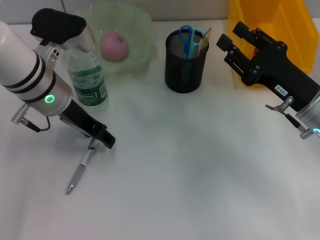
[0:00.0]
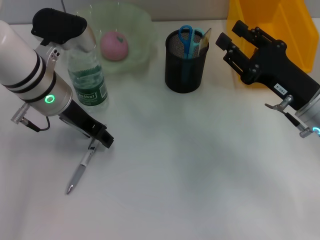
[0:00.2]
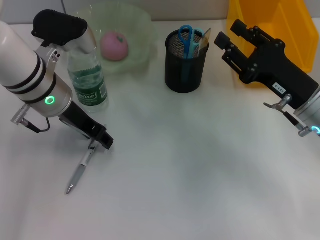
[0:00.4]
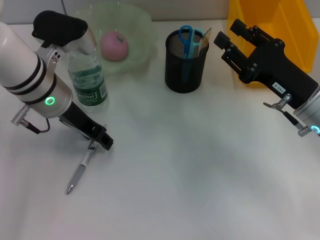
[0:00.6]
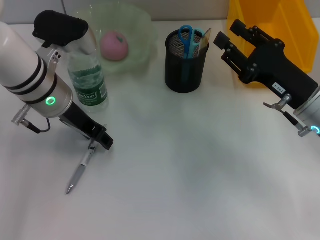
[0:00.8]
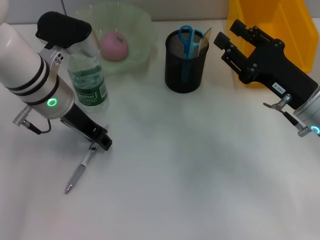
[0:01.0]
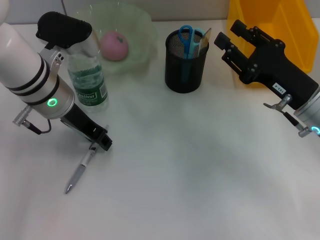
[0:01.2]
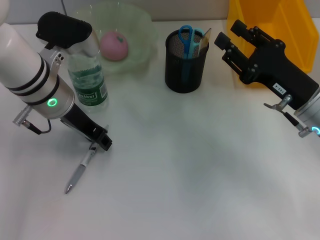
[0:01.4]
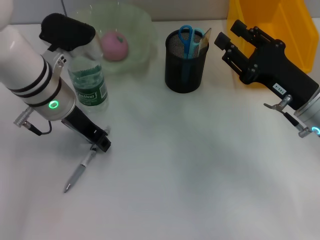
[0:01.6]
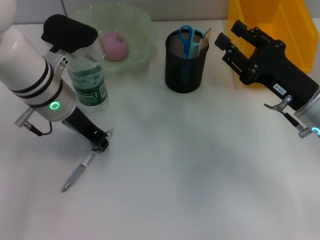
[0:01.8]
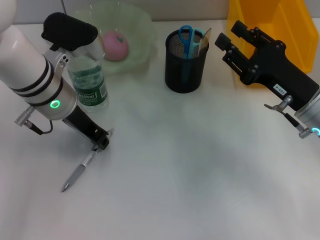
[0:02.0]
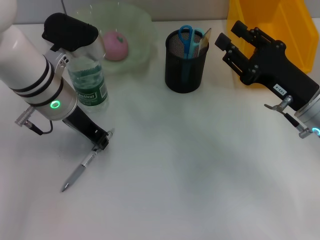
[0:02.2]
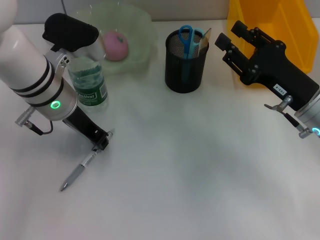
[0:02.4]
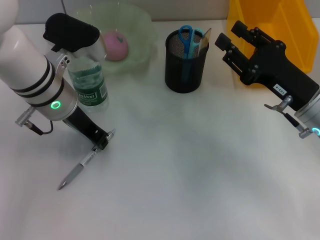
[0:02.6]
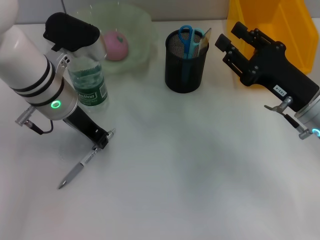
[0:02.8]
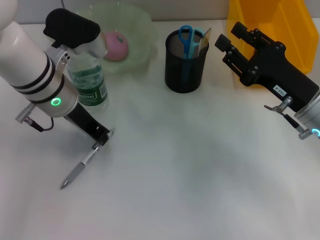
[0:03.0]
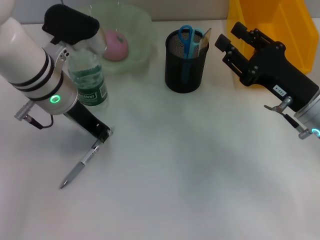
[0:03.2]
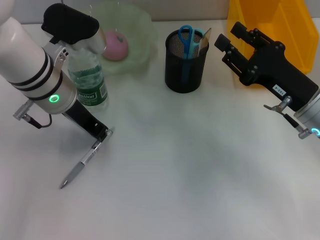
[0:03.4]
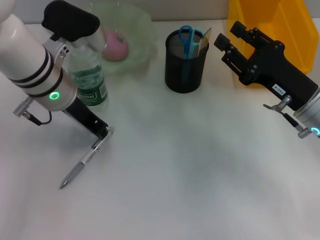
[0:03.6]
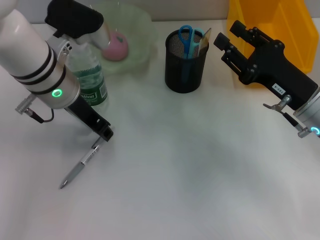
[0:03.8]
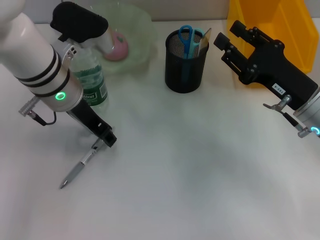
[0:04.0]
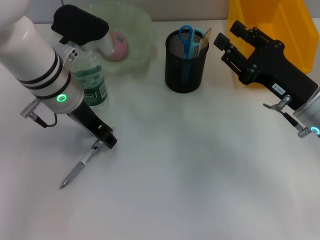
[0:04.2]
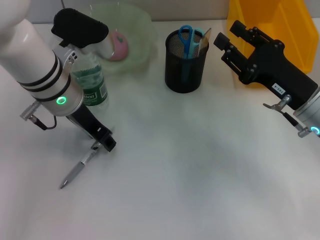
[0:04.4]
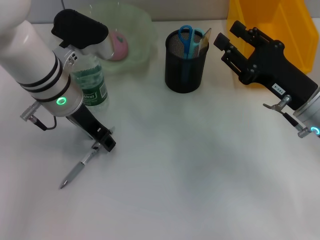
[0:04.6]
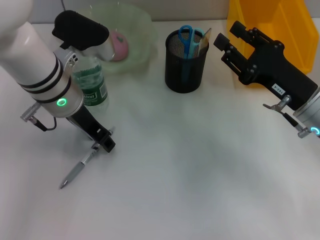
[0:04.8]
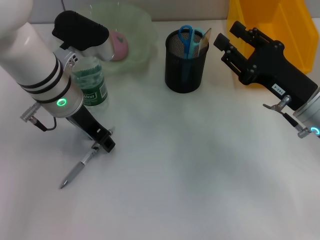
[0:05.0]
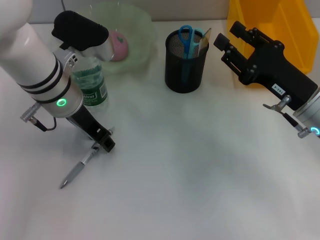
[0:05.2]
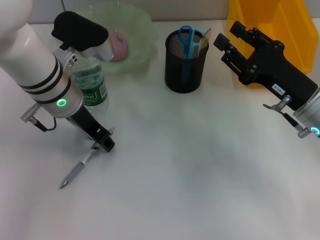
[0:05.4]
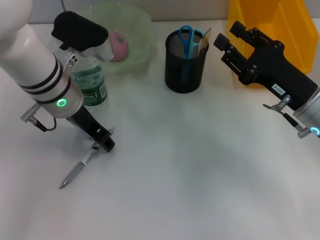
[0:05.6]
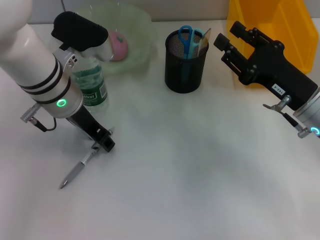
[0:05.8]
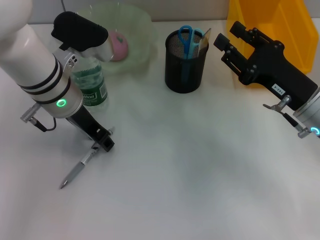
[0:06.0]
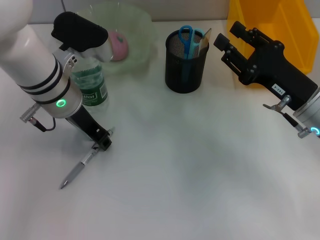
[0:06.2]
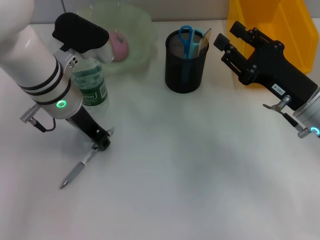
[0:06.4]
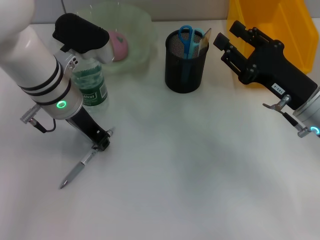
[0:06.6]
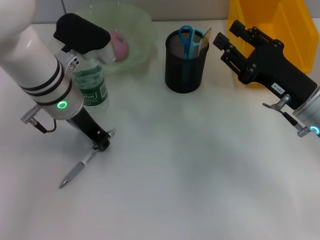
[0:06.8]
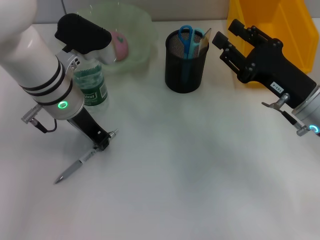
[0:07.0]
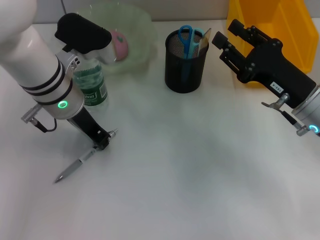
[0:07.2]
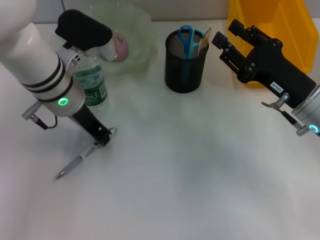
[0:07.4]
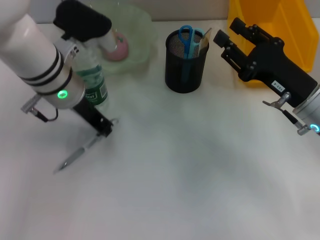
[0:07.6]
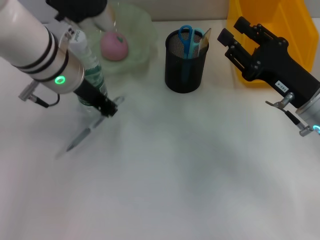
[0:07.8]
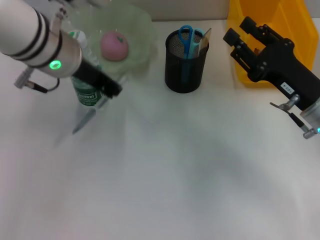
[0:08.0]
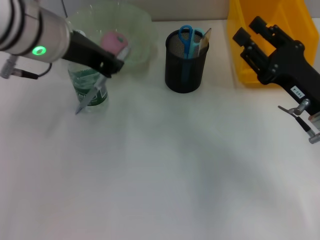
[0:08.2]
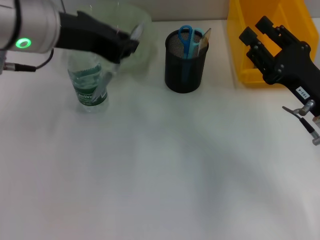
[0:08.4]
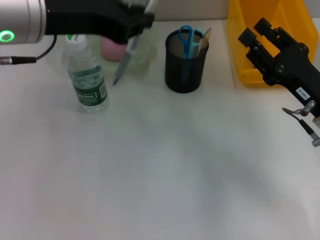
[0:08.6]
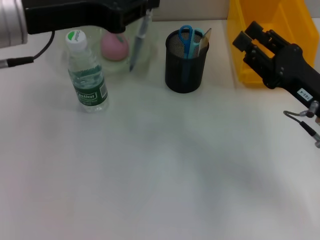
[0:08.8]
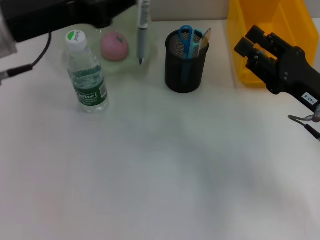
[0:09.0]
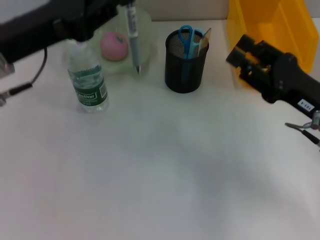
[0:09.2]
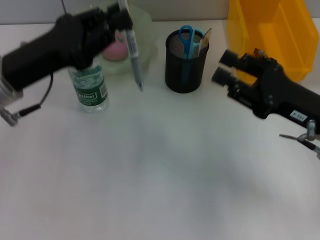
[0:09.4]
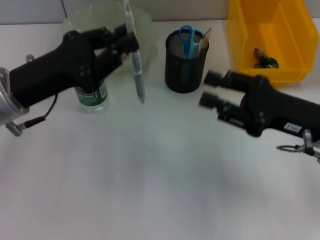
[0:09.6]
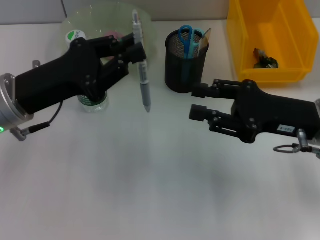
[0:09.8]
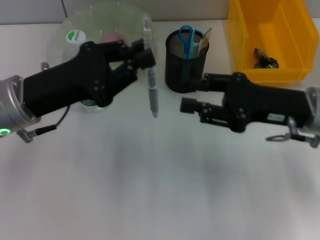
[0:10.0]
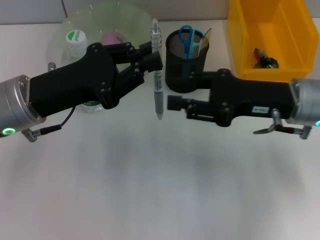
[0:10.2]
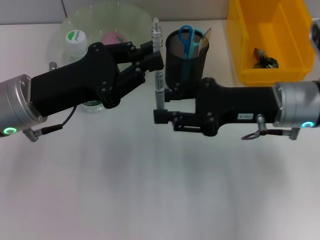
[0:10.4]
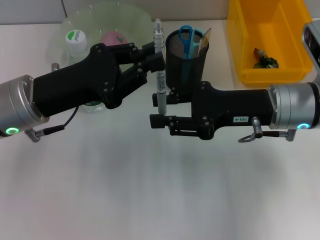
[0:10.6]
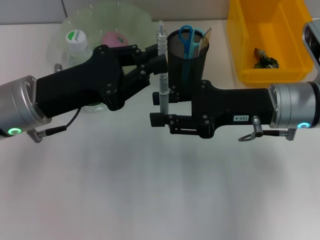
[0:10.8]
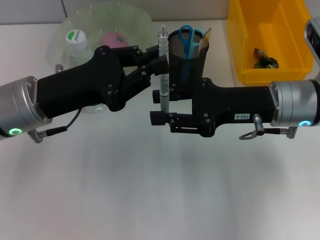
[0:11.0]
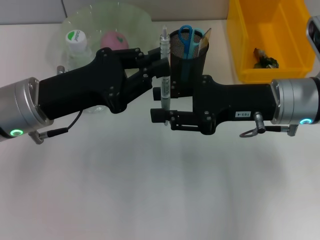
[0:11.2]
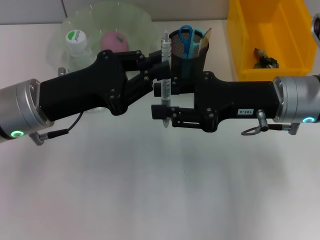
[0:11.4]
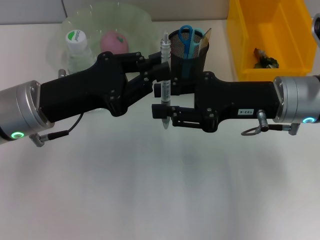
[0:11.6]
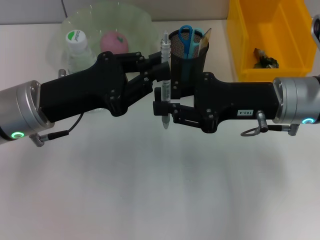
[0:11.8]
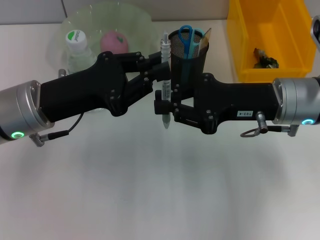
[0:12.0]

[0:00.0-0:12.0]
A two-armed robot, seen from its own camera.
Step, 0:00.0 to 0:07.0: Grab the gray spring-action pen with the left hand.
0:00.0 to 0:01.6: The two grippers keep their place.
0:01.6 to 0:03.0: Neither gripper changes place.
0:03.0 to 0:04.4: The left gripper opens up.
0:04.4 to 0:06.0: Neither gripper changes place.
0:06.0 to 0:07.6: The left gripper closes.
0:07.6 to 0:09.0: The left gripper moves upward, backward and to the left, some 10 cm.
0:09.0 to 0:10.4: The right gripper moves to the left, approximately 5 cm, while the left gripper moves downward, approximately 10 cm.
0:10.4 to 0:12.0: Both grippers stay put.

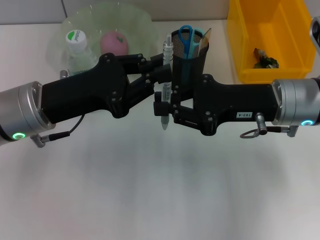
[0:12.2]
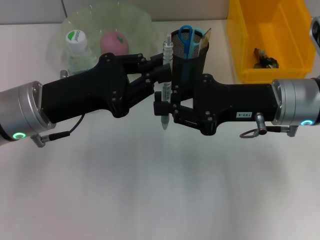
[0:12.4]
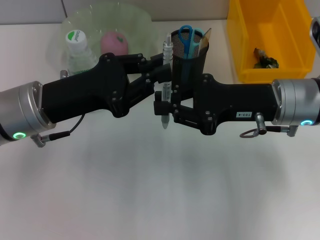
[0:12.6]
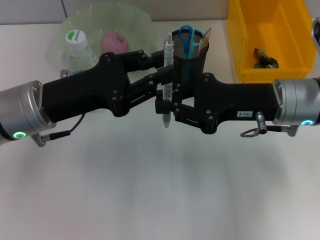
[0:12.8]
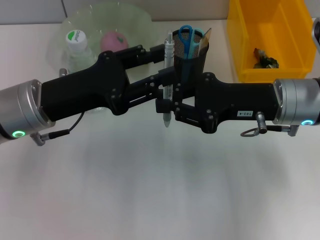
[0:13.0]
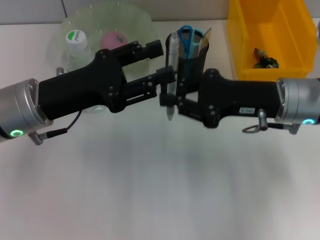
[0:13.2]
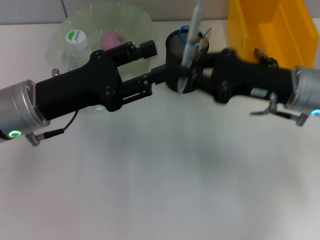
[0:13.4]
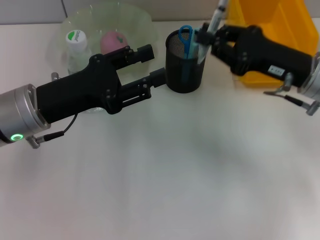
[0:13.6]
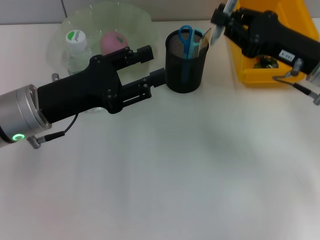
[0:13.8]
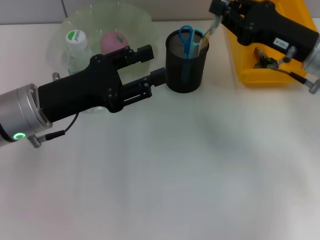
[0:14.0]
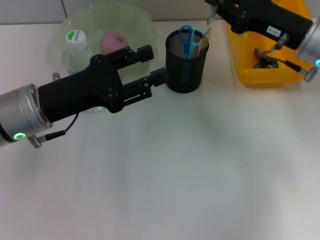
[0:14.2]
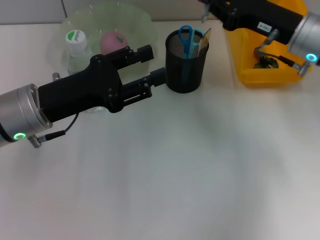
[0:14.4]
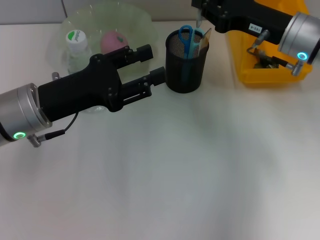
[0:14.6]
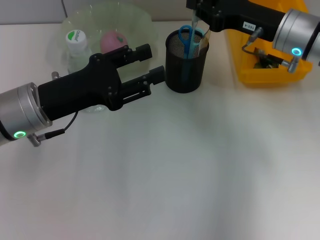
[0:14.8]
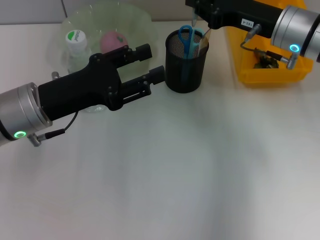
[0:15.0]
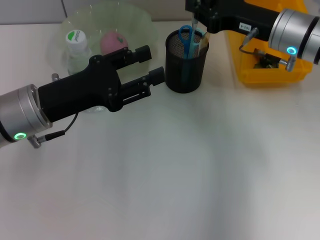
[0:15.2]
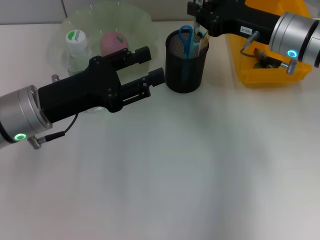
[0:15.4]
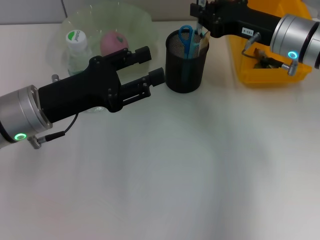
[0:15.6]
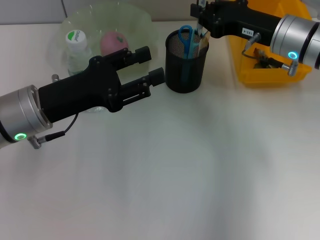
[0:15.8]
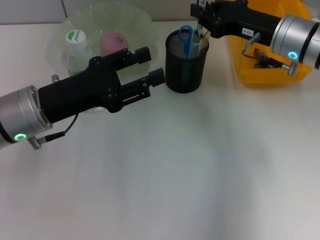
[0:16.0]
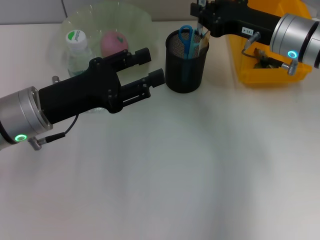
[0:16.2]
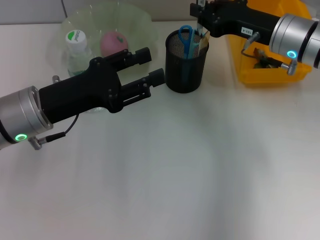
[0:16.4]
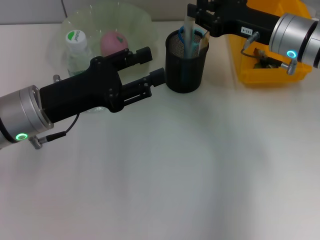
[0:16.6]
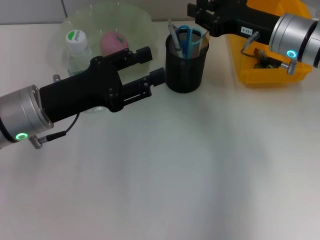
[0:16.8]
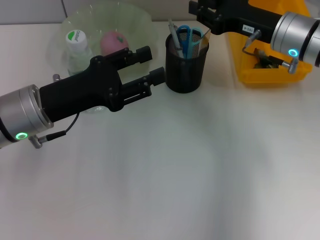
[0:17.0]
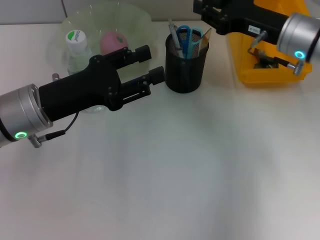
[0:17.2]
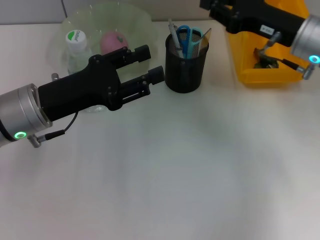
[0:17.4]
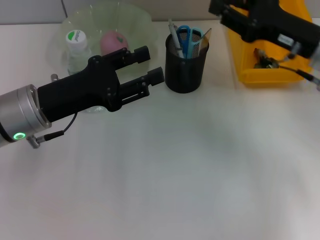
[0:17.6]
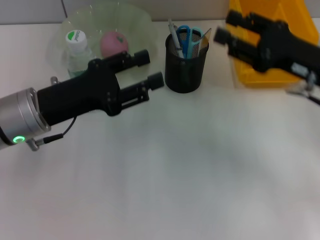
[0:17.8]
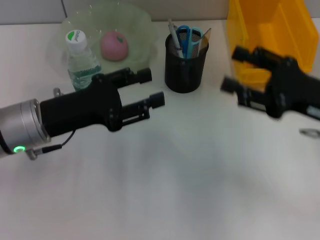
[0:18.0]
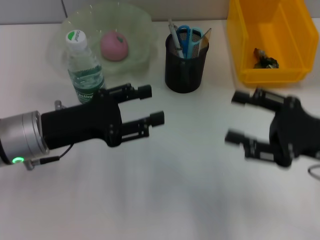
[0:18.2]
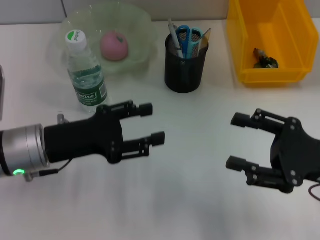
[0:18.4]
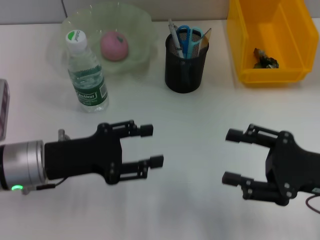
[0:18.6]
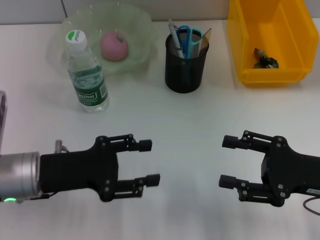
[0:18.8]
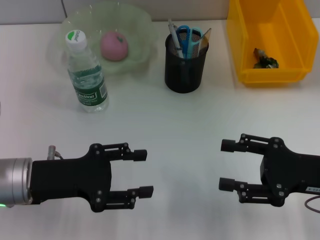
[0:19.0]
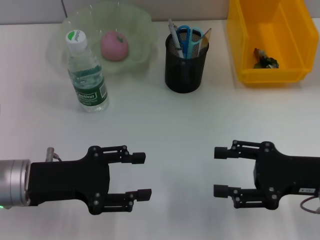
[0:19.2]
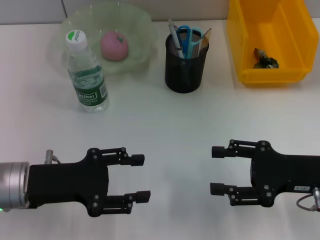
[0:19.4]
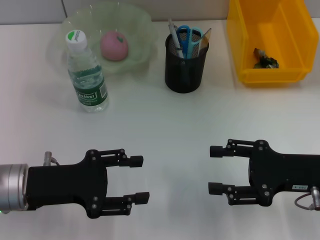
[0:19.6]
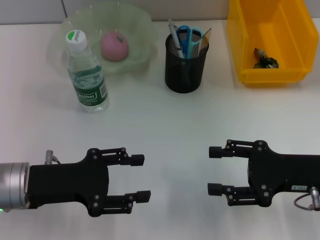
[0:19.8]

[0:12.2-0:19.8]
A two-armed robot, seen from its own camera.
Step, 0:13.2 to 0:17.2: Place the gray spring-action pen into the pen holder with the right hand.
0:12.2 to 0:13.8: The left gripper opens its fingers. Meanwhile the right gripper shifts some 5 cm to the right.
0:13.8 to 0:15.2: The right gripper is displaced forward by roughly 5 cm.
0:15.2 to 0:16.8: Both grippers stay put.
0:16.8 to 0:18.2: The right gripper goes approximately 15 cm backward and to the right, and opens.
0:18.2 to 0:19.8: The left gripper moves about 5 cm.
